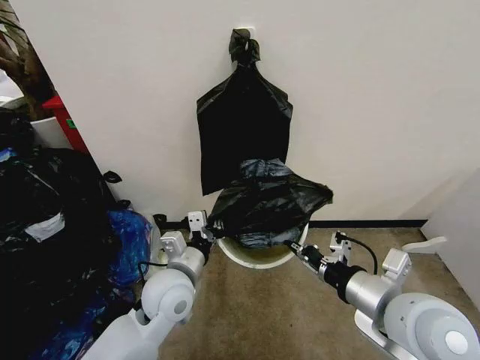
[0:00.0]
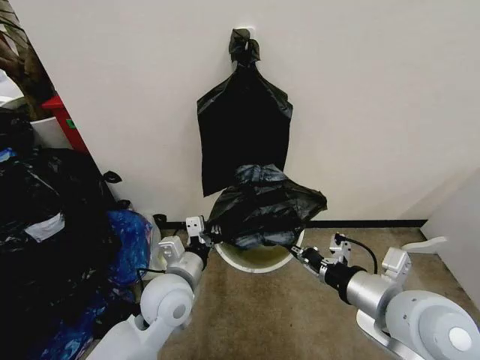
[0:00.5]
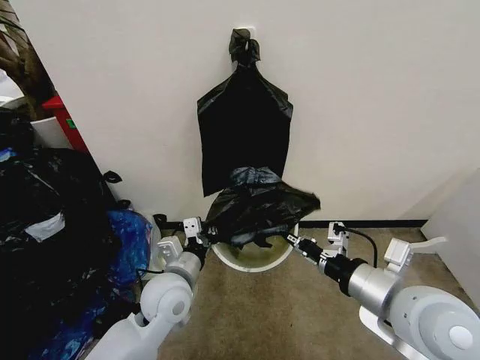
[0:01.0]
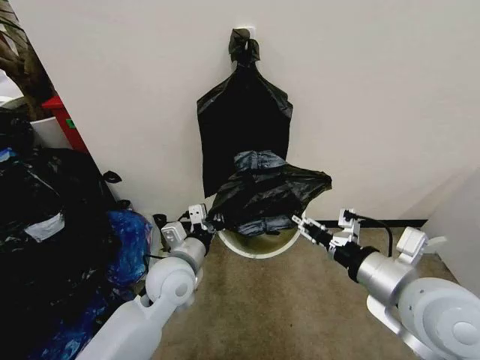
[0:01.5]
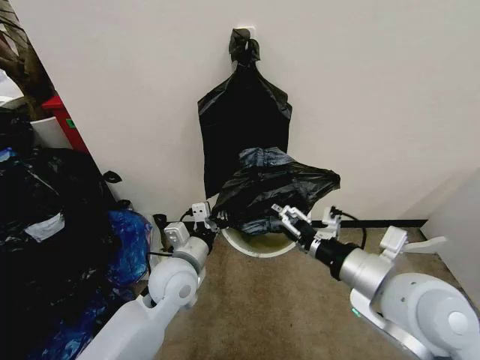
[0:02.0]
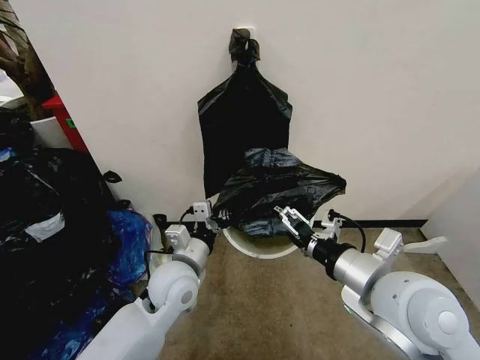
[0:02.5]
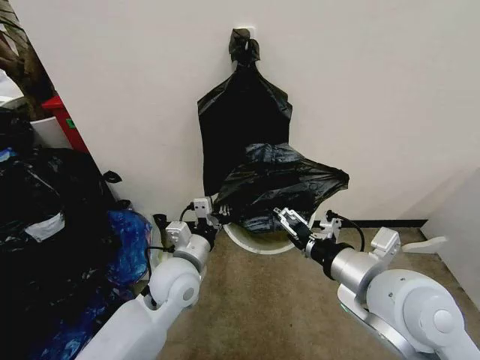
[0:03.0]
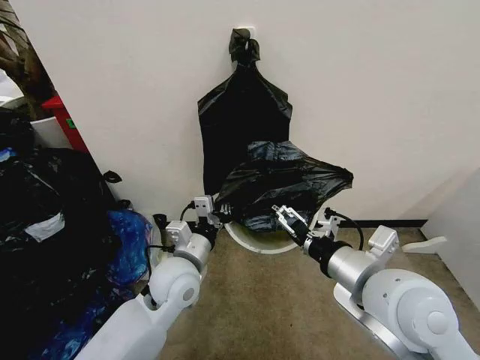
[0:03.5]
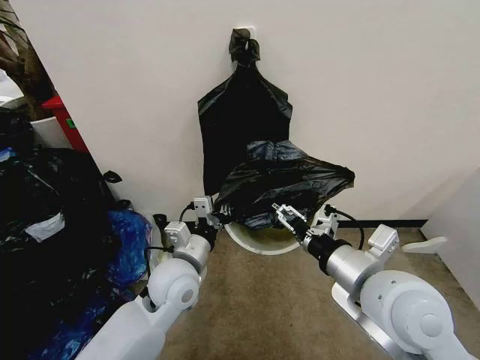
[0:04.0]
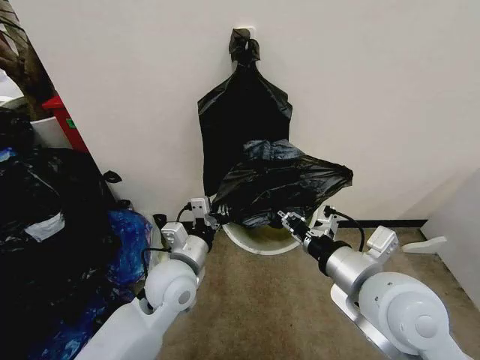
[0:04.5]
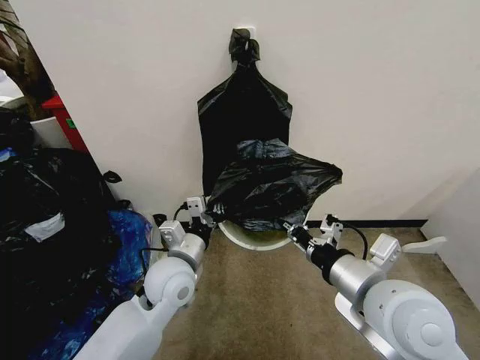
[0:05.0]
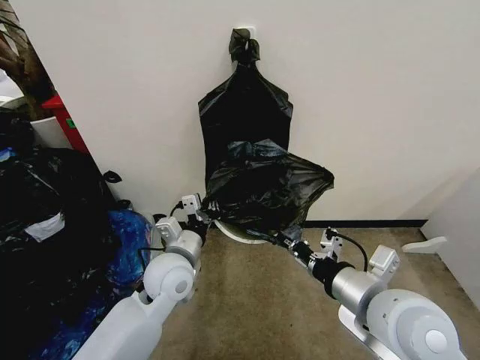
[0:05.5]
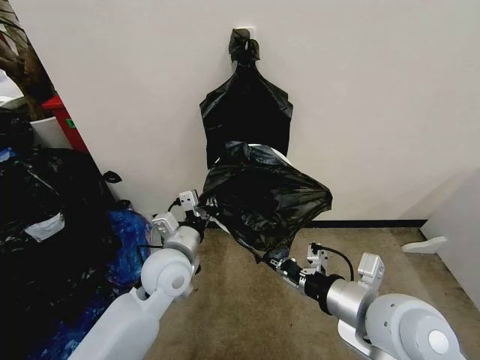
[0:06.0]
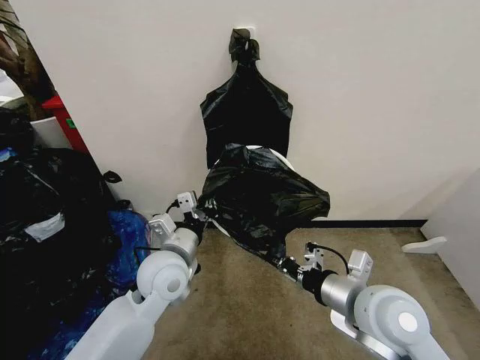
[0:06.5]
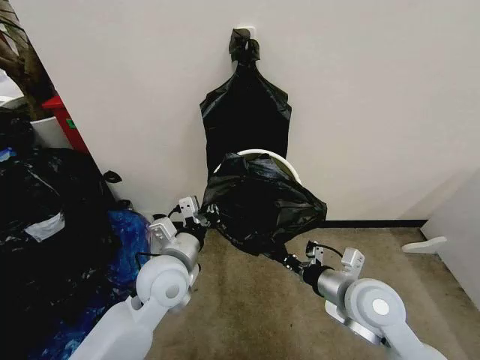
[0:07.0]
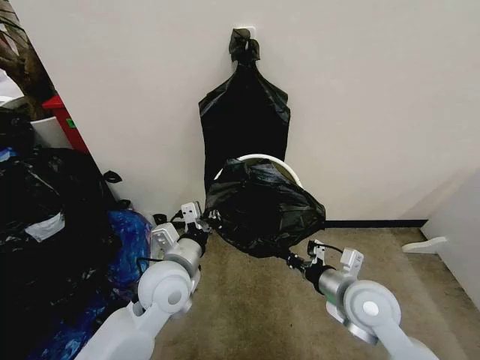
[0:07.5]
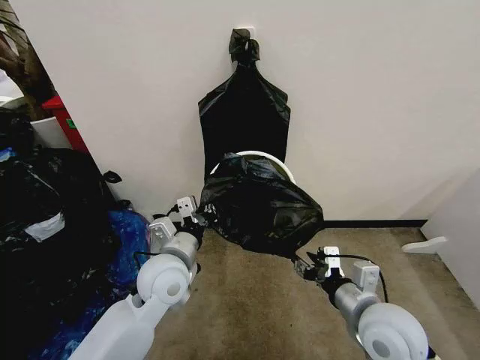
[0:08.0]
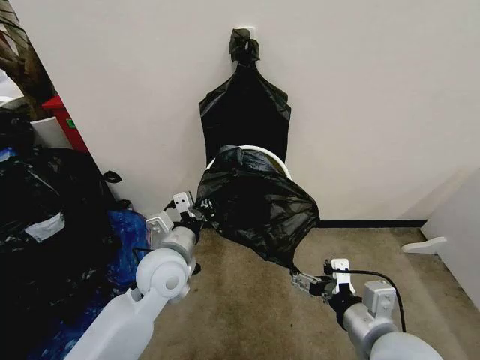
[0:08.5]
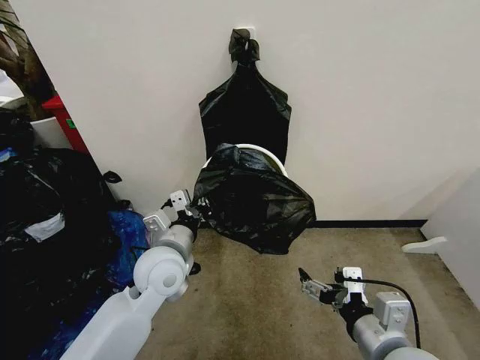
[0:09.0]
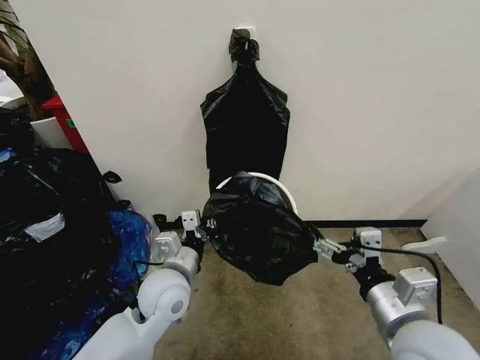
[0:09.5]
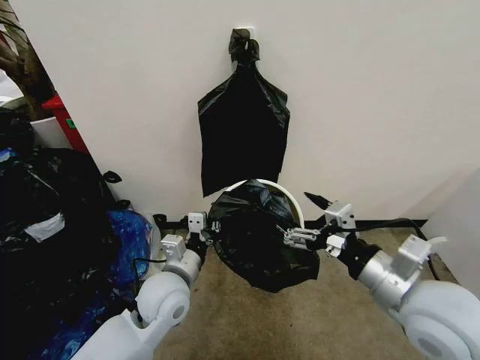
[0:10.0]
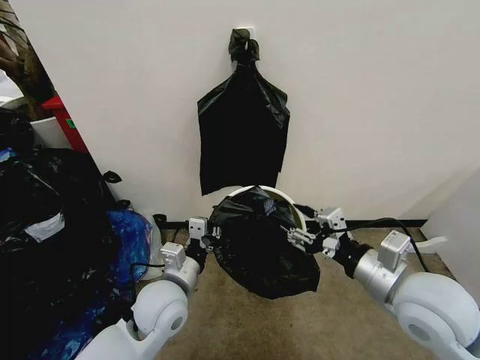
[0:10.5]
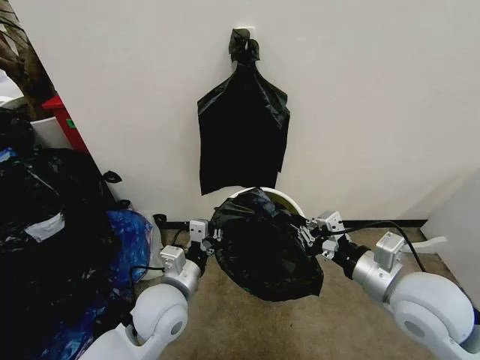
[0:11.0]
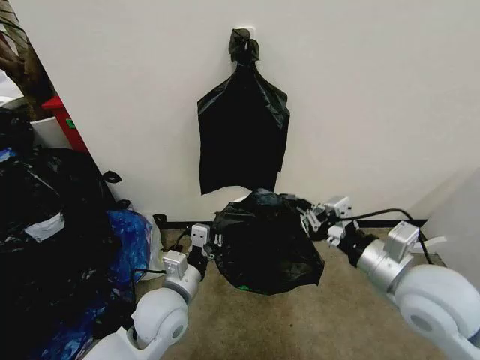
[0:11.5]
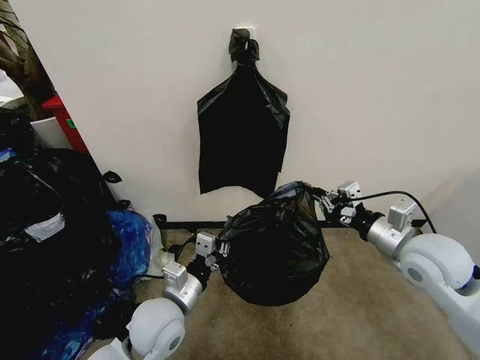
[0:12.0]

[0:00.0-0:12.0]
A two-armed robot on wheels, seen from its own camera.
Task of the whole recording: Place the garbage bag over the trash bin.
0.0 to 2.0 s: The right gripper opens its fingers.
2.0 to 4.0 s: The grippers make only small movements.
4.0 to 6.0 s: The right gripper closes up.
6.0 to 8.0 s: The right gripper moves downward, approximately 10 cm, and opens up.
8.0 to 10.0 s: The right gripper shifts some 10 cm upward, and opens its fingers.
10.0 to 12.0 s: The right gripper goes some 15 cm forward and to the right, and closes its fingers.

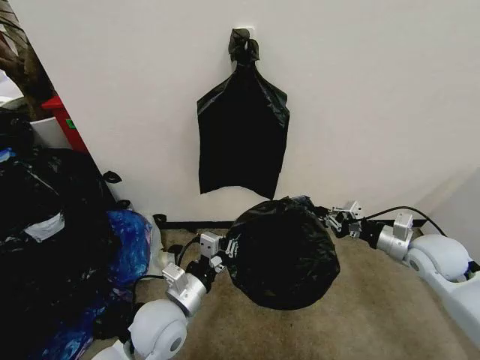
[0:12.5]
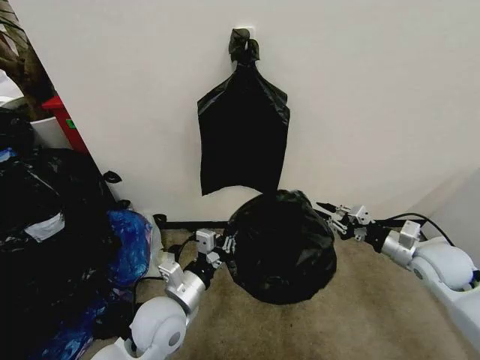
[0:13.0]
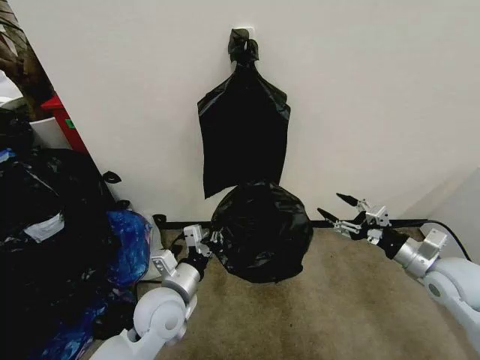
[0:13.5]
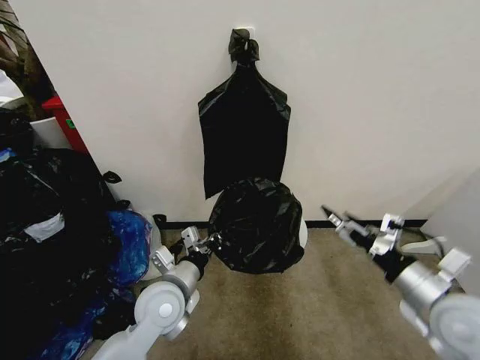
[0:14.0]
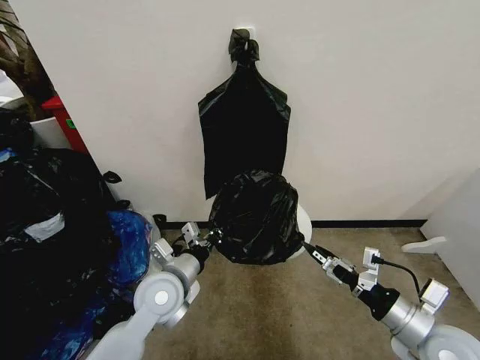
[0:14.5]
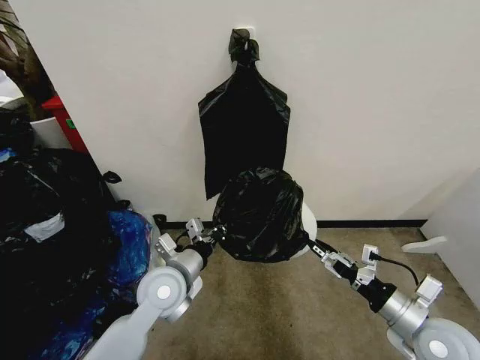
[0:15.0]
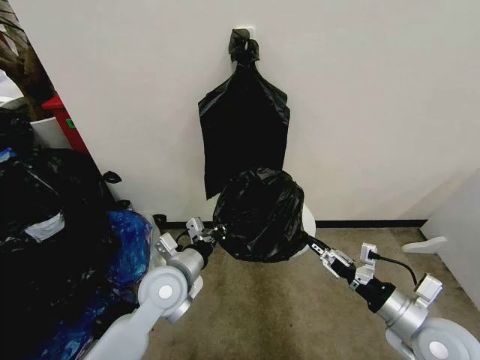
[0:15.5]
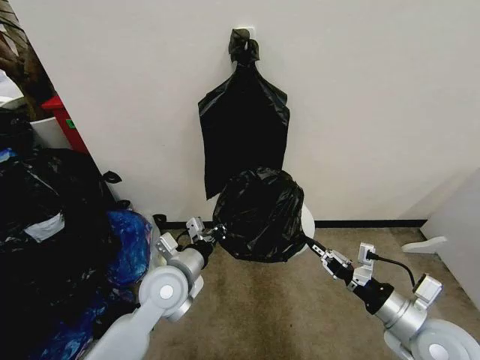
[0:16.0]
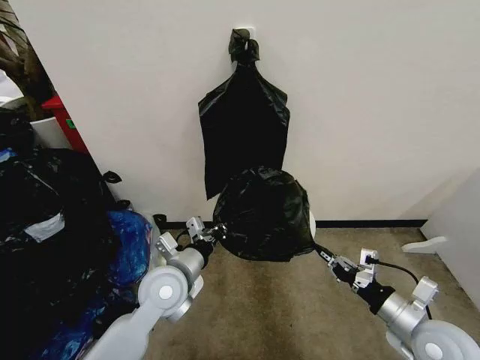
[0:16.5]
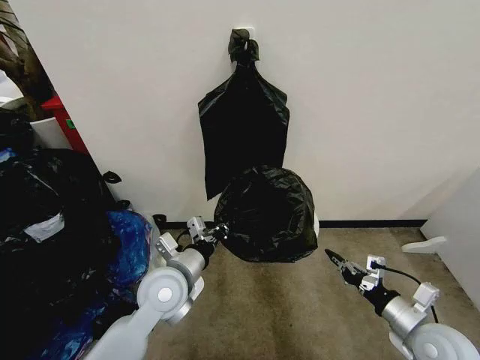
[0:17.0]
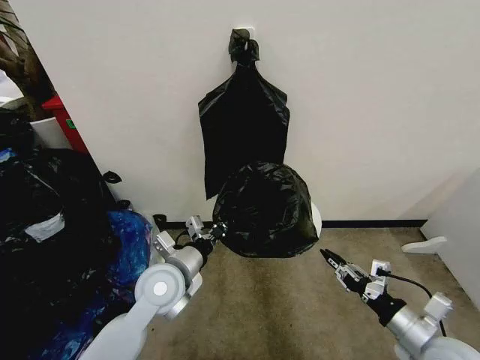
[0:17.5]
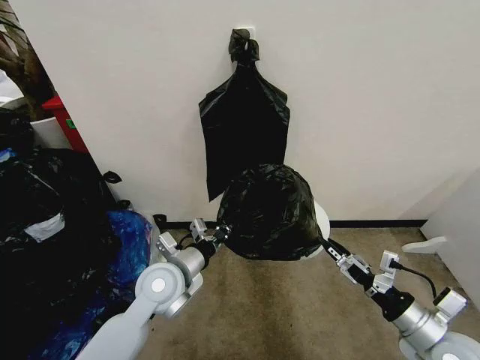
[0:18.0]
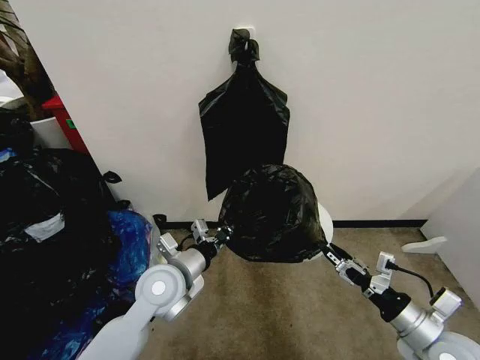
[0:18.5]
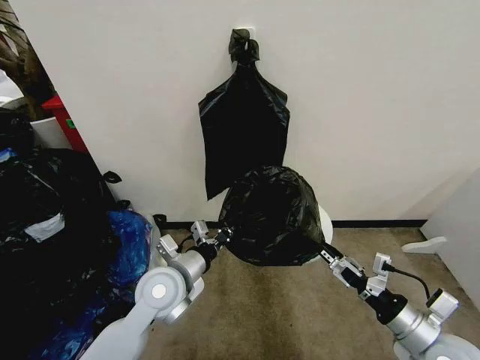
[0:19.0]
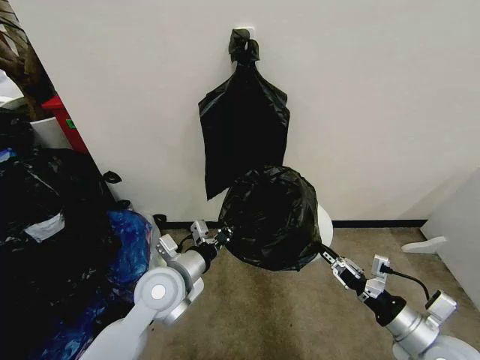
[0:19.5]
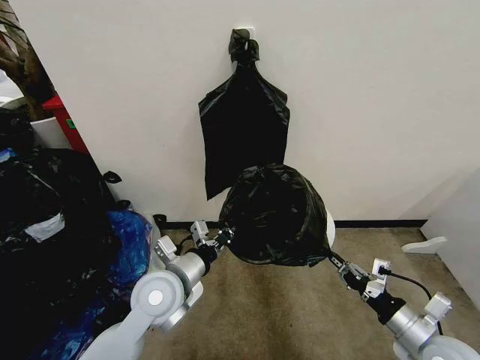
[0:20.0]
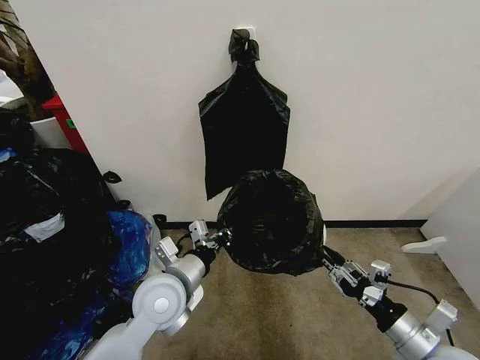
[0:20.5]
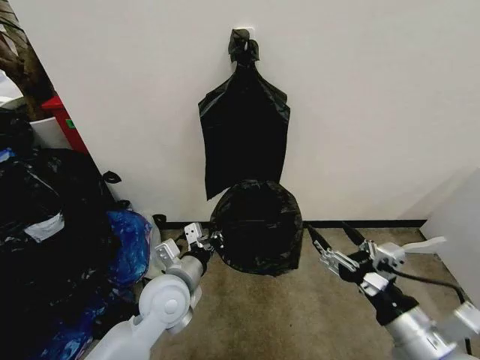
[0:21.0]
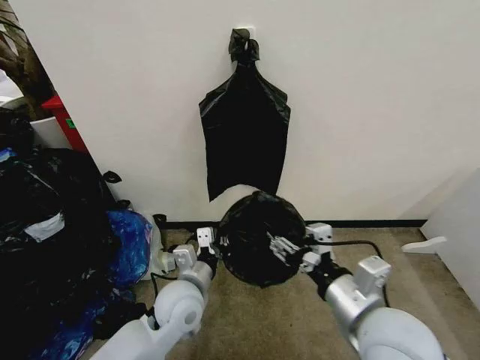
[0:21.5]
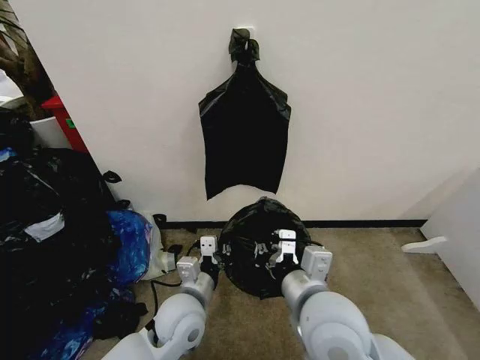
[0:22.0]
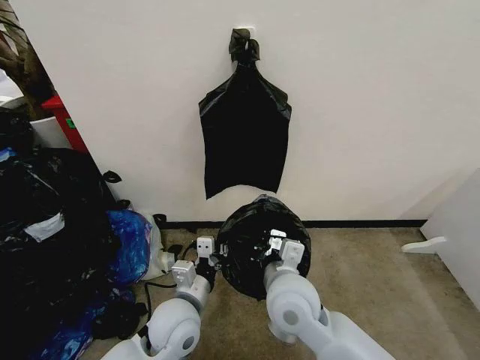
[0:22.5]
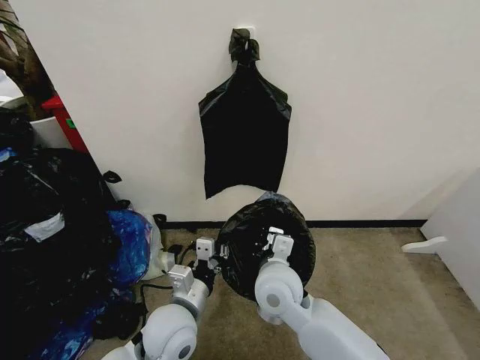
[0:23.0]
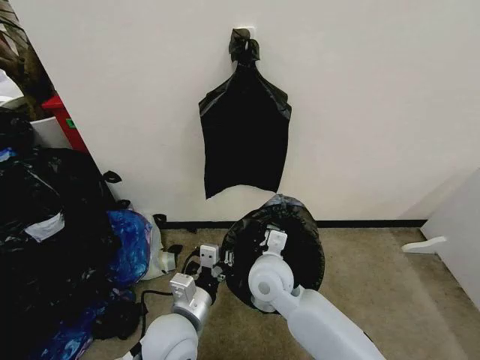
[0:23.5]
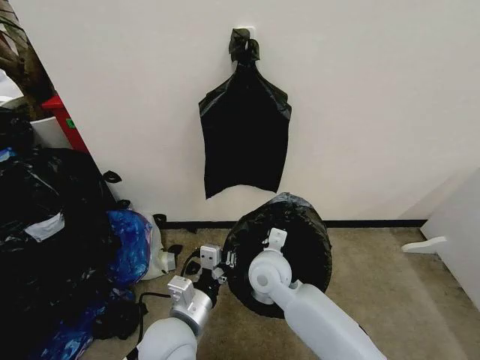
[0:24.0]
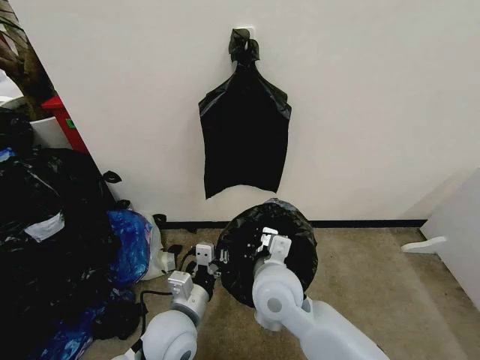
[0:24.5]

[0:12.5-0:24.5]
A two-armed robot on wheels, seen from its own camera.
Task of the whole recording: Place the garbage bag over the trash bin.
12.5 to 14.5 s: The right gripper shifts roughly 15 cm backward, and opens; the left gripper travels forward by about 5 cm.
14.5 to 16.5 s: The right gripper closes.
16.5 to 18.5 s: The right gripper opens.
18.5 to 20.5 s: The right gripper closes its fingers.
20.5 to 22.5 s: The right gripper heads to the left, covering about 25 cm, and opens and closes again, while the left gripper shifts approximately 5 cm downward.
22.5 to 24.5 s: The right gripper goes forward and returns, approximately 10 cm each way.

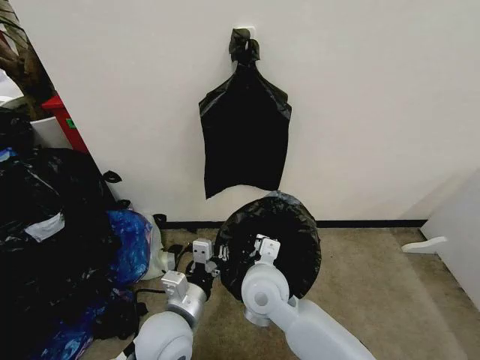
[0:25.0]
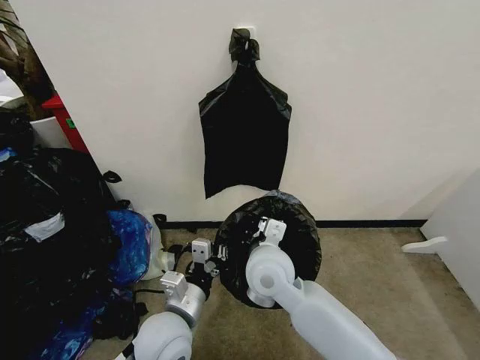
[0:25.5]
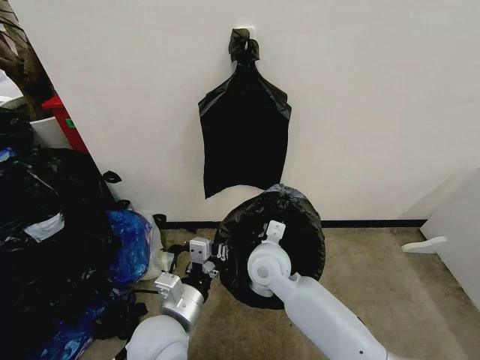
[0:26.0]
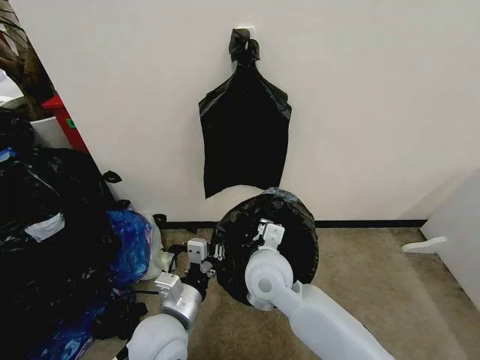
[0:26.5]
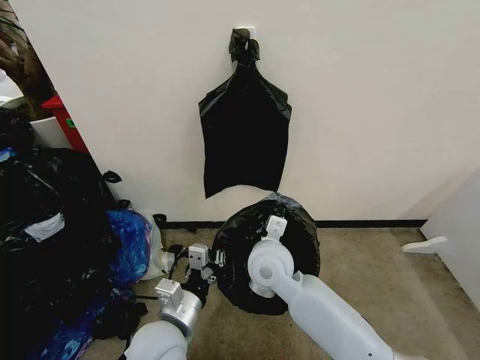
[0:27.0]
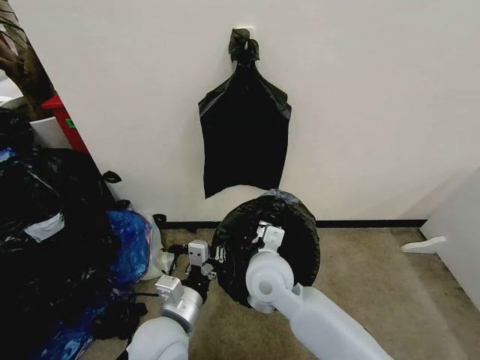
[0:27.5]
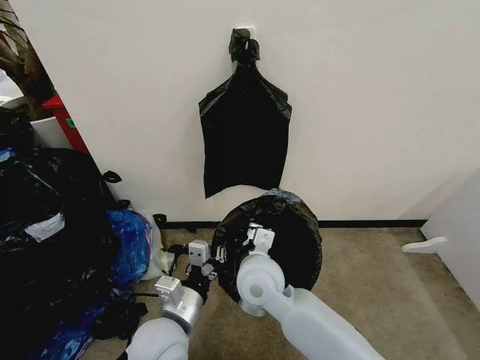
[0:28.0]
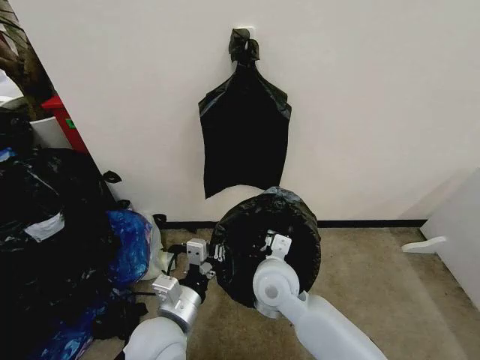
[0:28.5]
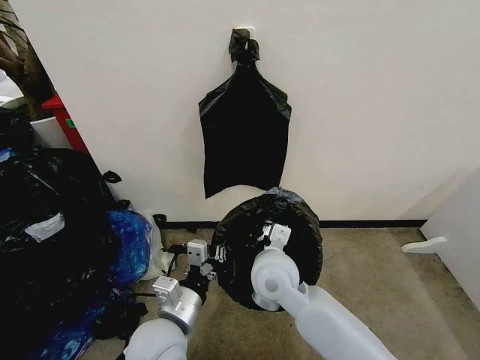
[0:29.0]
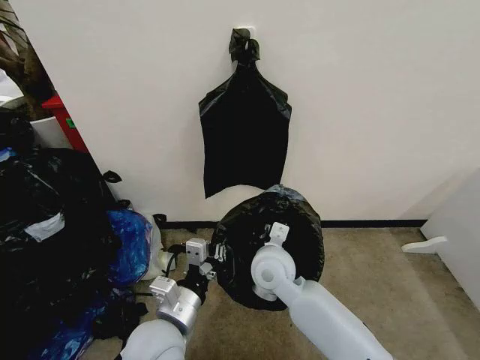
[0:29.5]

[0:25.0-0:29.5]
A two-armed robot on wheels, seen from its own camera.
Task of the whole recording: Place the garbage bag over the trash bin.
25.0 to 27.0 s: The right gripper shifts by roughly 5 cm.
27.0 to 29.5 s: The grippers move only a little.
